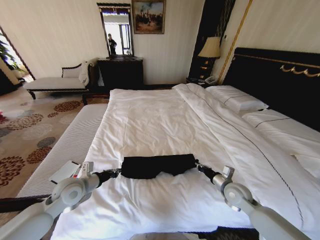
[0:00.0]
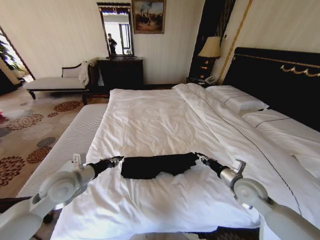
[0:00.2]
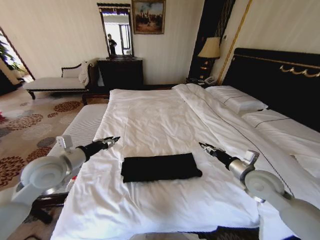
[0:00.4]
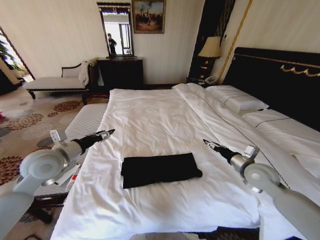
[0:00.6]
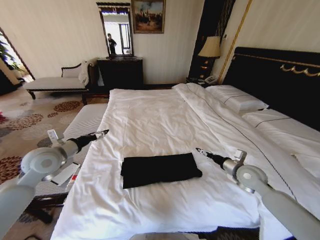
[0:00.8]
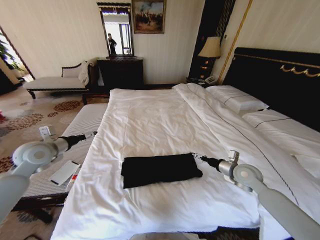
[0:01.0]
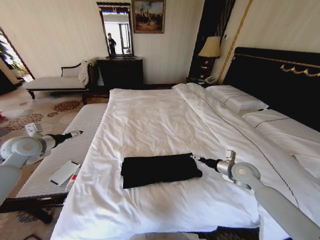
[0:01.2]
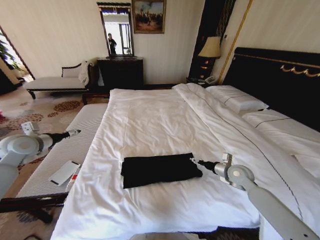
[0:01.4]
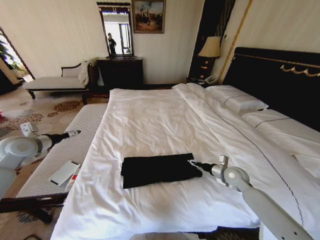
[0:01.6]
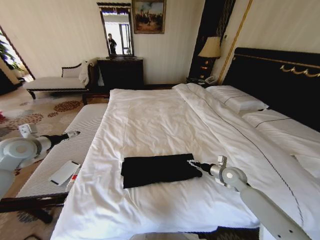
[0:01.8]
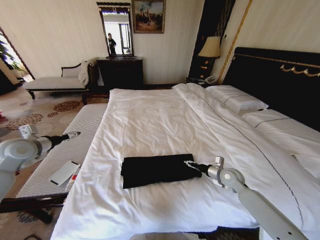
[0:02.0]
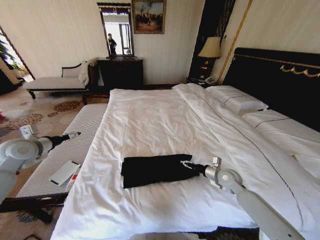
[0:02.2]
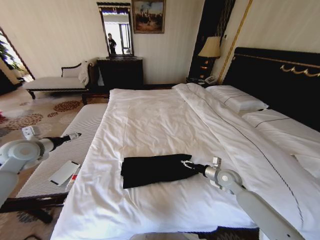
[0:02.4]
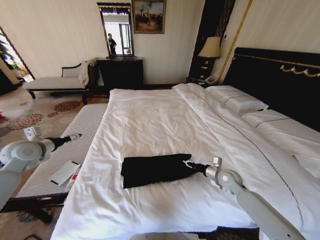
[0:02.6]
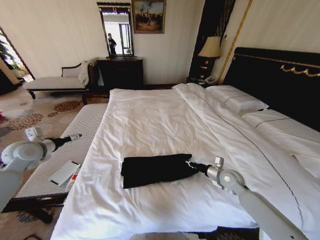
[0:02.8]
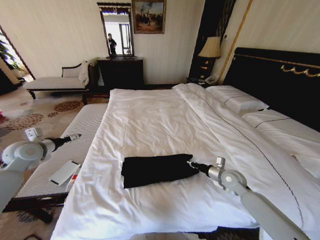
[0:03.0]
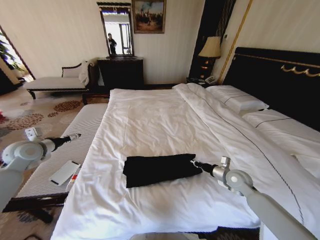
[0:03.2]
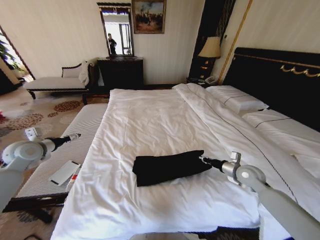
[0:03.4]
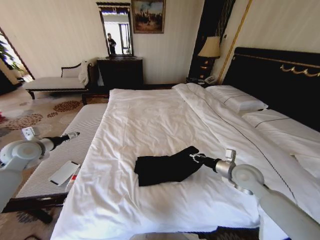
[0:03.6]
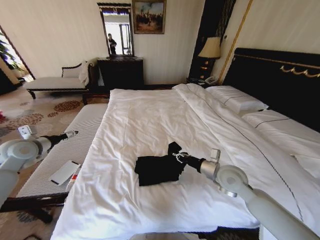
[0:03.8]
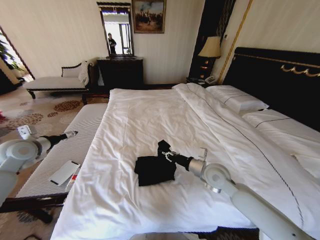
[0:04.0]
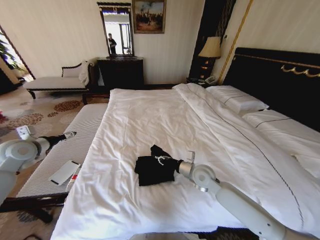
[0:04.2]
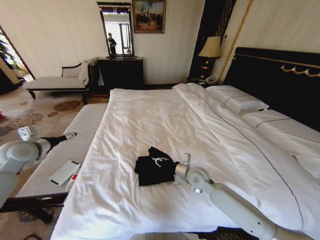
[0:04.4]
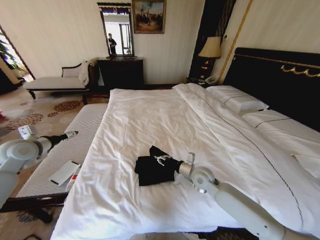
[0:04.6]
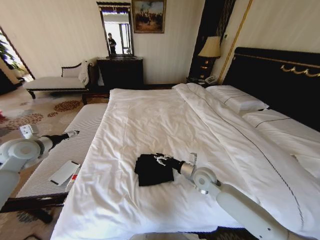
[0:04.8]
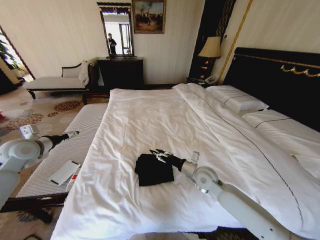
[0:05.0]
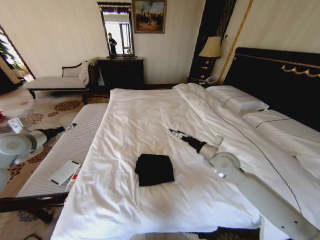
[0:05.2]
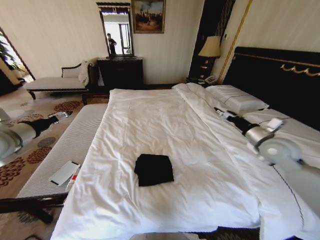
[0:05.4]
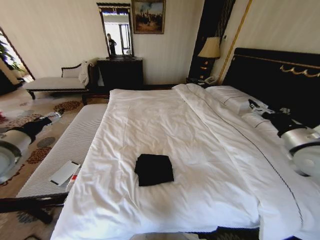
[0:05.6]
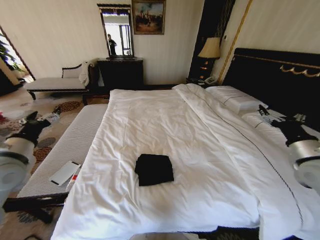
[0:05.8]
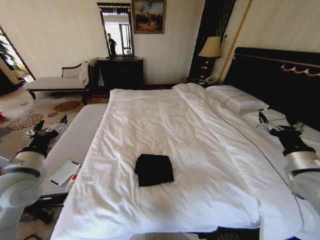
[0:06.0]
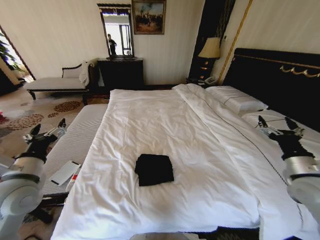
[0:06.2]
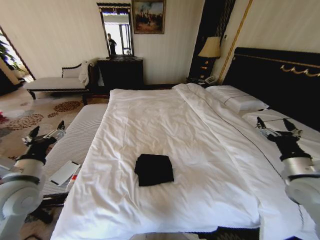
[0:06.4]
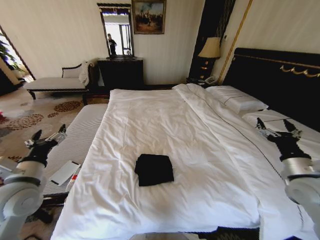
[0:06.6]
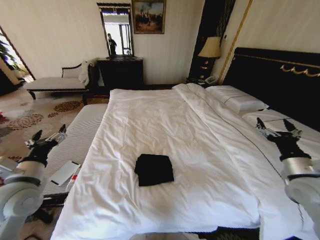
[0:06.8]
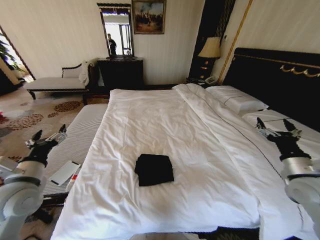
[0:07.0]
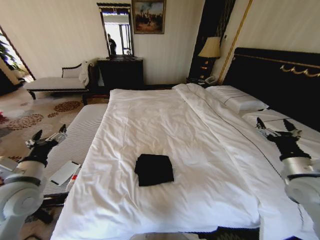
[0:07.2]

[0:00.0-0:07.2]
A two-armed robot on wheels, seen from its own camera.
Task of the whole recording: Fold the clothes on the bed.
0:00.0 to 0:01.4: The right gripper travels forward by some 5 cm, moves about 10 cm upward and comes back, and opens its fingers. Meanwhile the left gripper shifts about 25 cm to the left, upward and forward, and opens its fingers.
0:01.4 to 0:02.8: The right gripper closes up.
0:02.8 to 0:04.4: The right gripper is displaced to the left by roughly 15 cm.
0:04.4 to 0:05.8: The left gripper moves backward and to the right, some 10 cm. Meanwhile the right gripper goes approximately 35 cm to the right and upward, and opens up.
0:05.8 to 0:07.2: Both grippers move downward, approximately 5 cm.
